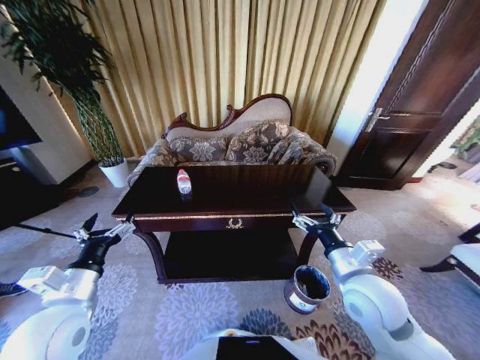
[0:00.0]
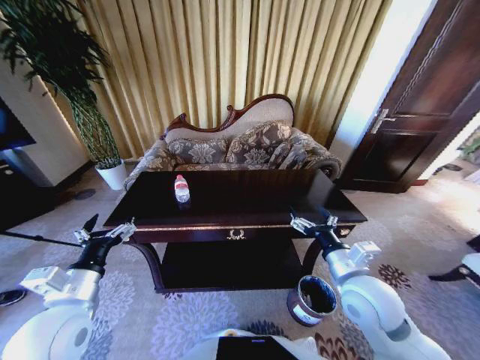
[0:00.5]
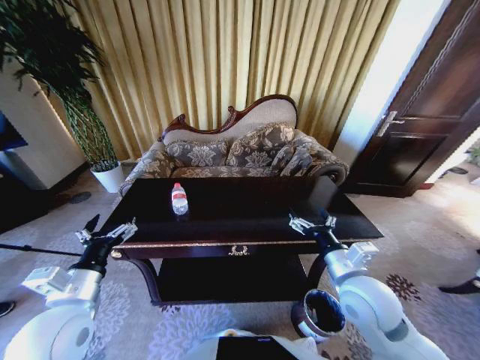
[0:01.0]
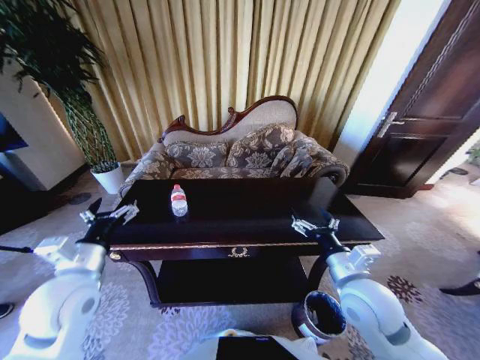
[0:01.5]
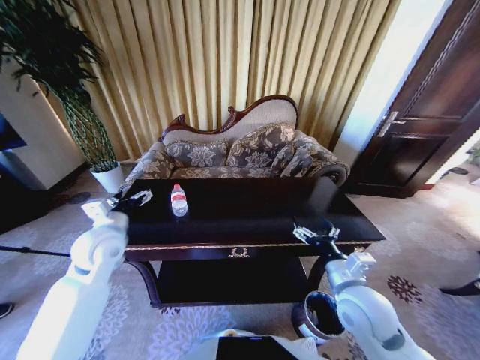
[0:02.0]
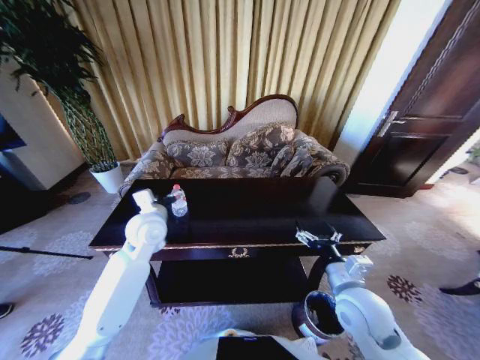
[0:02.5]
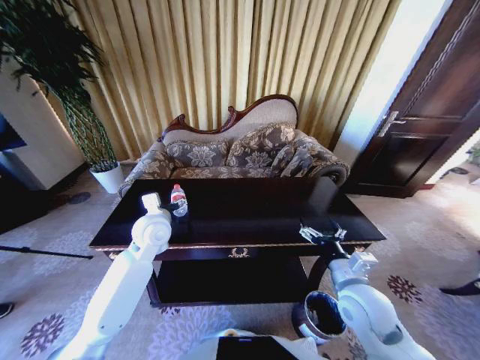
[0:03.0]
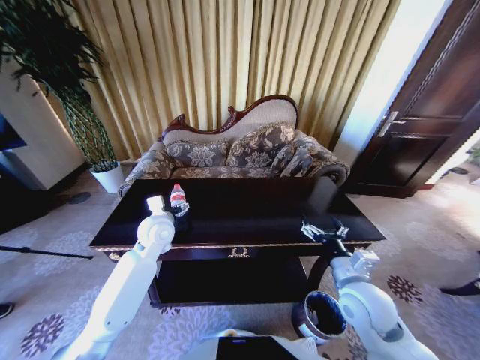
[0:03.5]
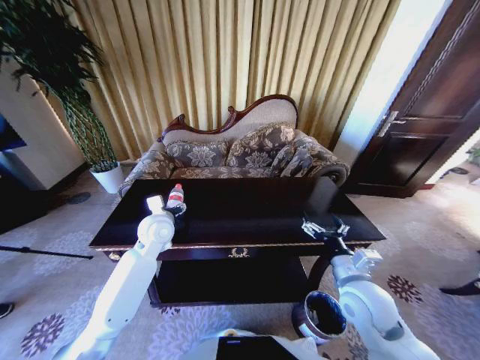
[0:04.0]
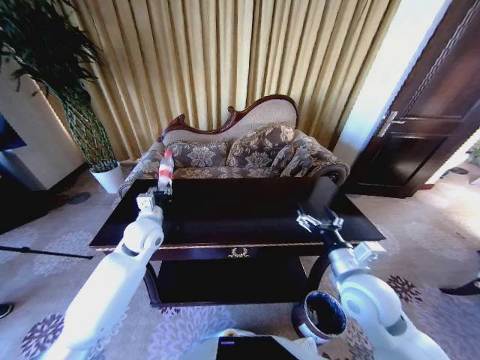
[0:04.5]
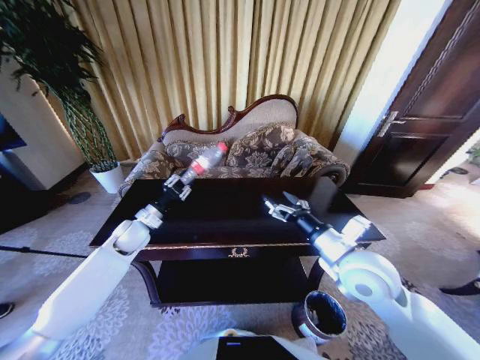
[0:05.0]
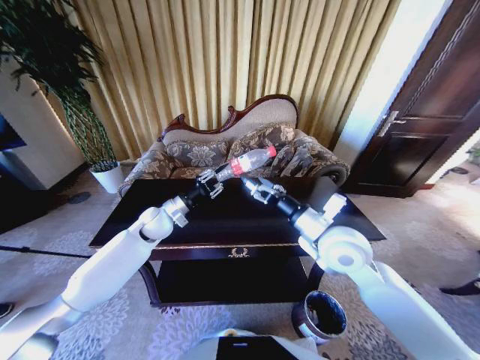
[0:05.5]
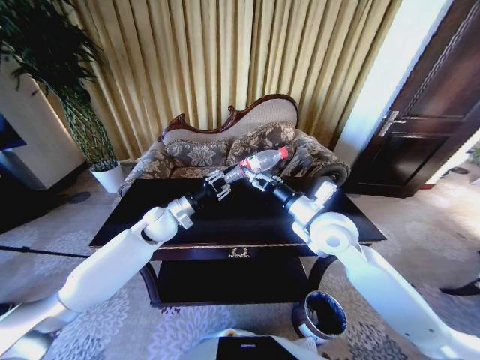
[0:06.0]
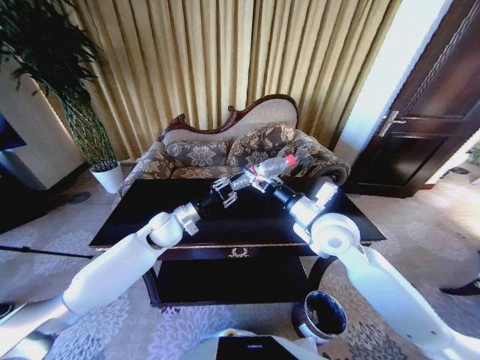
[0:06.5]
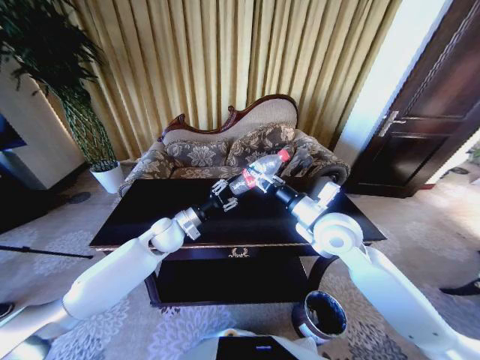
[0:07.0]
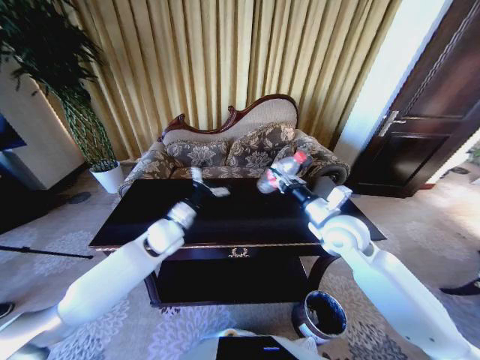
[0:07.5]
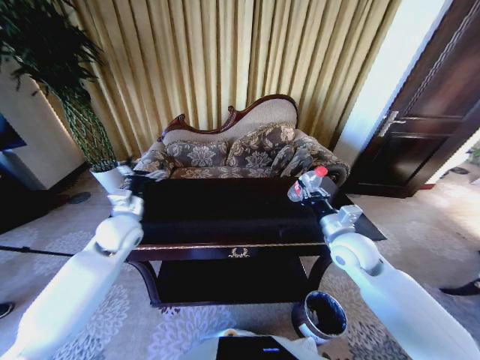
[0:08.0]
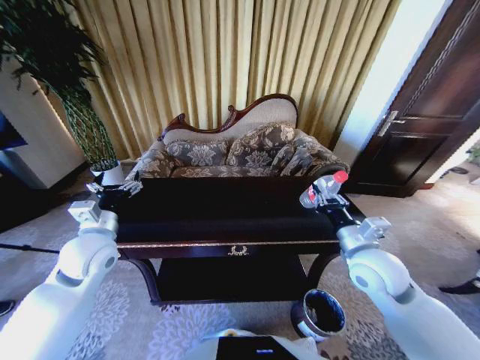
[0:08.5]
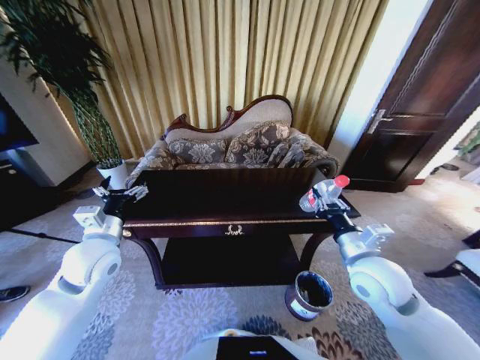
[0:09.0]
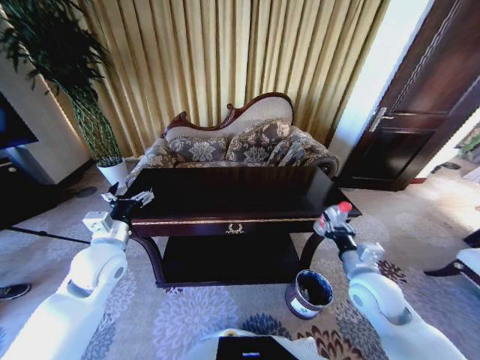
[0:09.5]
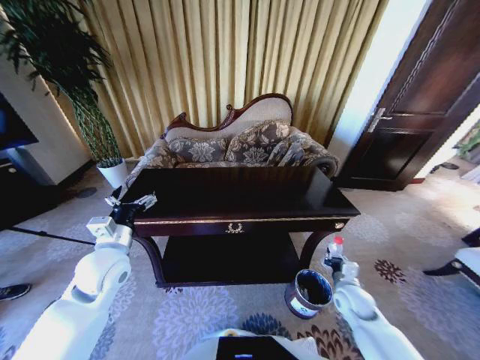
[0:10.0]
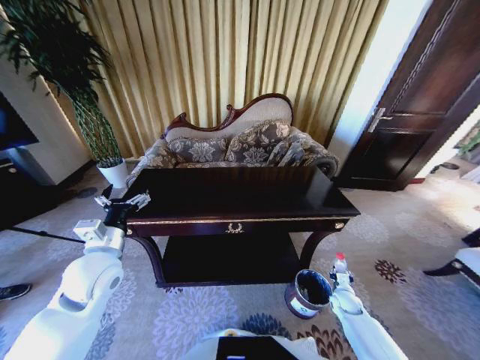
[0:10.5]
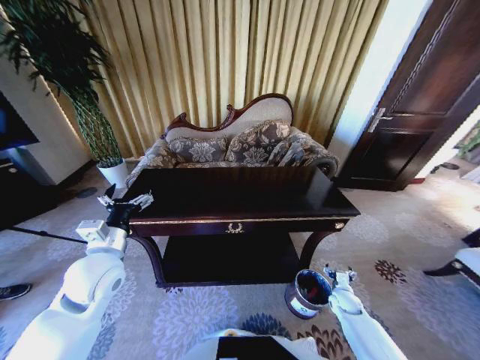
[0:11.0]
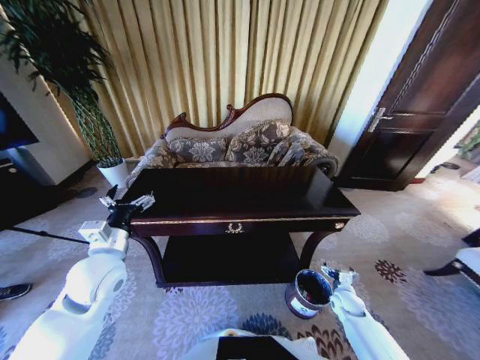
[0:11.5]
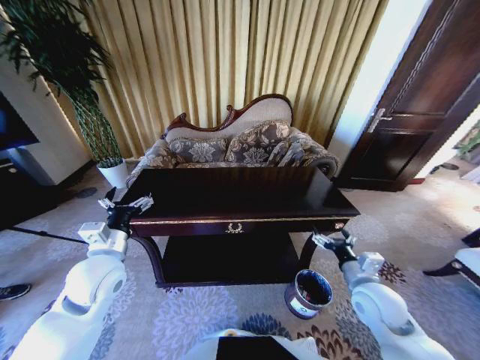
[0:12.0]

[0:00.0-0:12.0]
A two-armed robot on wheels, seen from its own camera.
Task of the whole recording: Move to the front of the table and place the trash on the table into the trash bin.
0.0 to 2.0 s: The left gripper goes some 15 cm forward.
2.0 to 4.0 s: The left gripper heads to the right and forward, covering roughly 10 cm, and closes its fingers.
4.0 to 6.0 s: The left gripper moves about 10 cm to the left and comes back, and closes; the right gripper heads forward, upward and to the left, covering roughly 15 cm.
6.0 to 8.0 s: The right gripper is displaced to the right and downward by roughly 10 cm, and closes its fingers. The left gripper moves to the left, roughly 10 cm, and opens.
8.0 to 10.0 s: The left gripper moves backward, about 10 cm, while the right gripper is displaced downward by some 20 cm.
10.0 to 12.0 s: The right gripper is displaced upward by about 10 cm, and opens up.

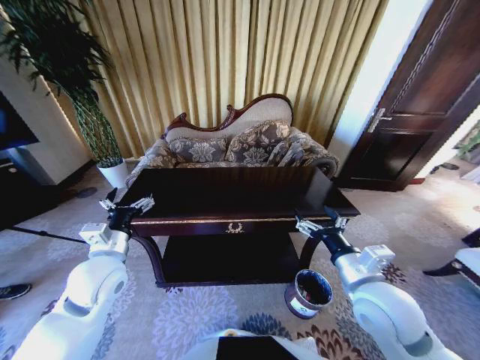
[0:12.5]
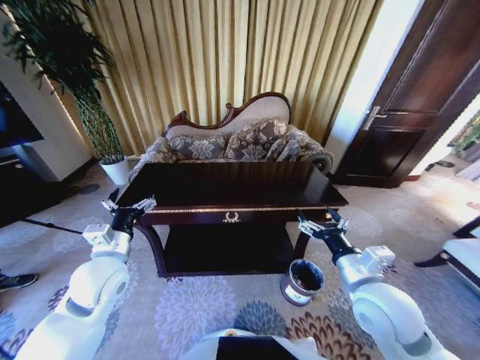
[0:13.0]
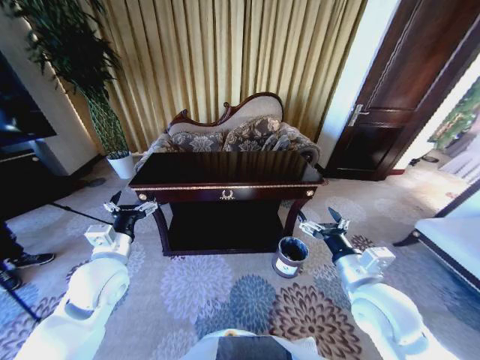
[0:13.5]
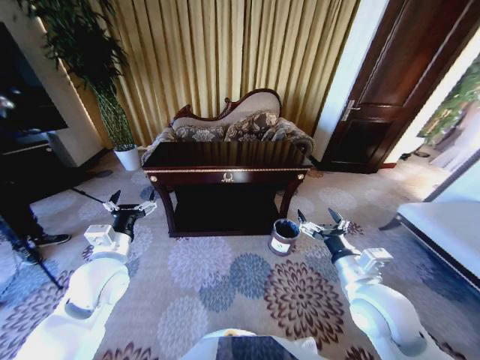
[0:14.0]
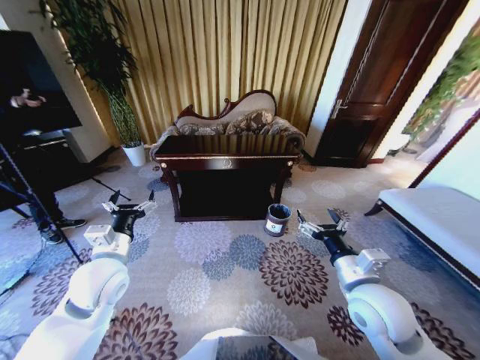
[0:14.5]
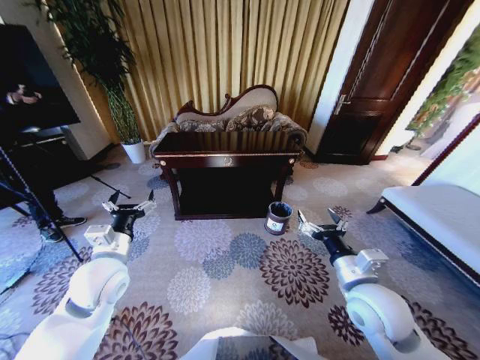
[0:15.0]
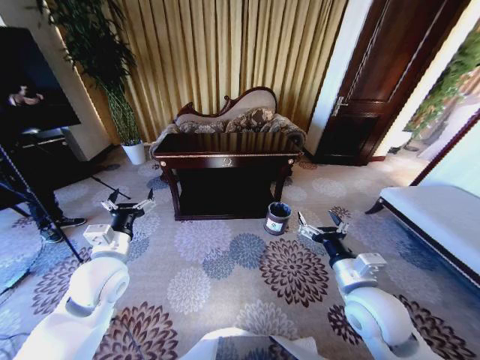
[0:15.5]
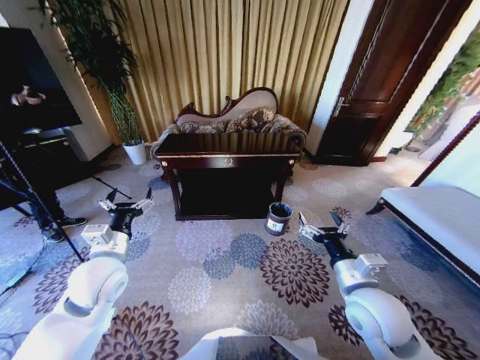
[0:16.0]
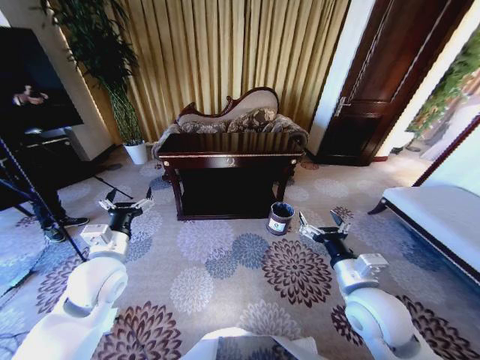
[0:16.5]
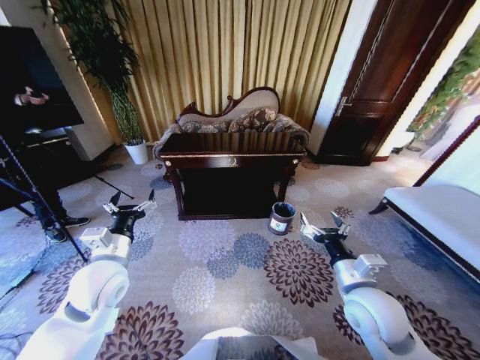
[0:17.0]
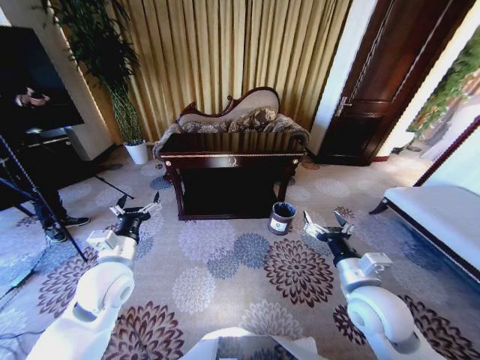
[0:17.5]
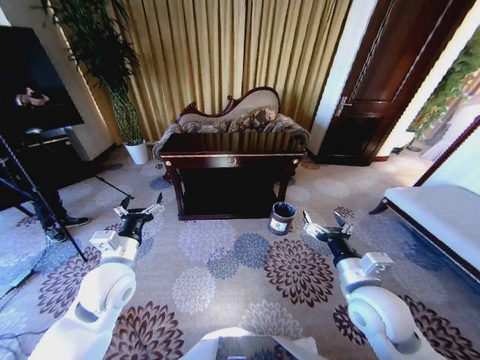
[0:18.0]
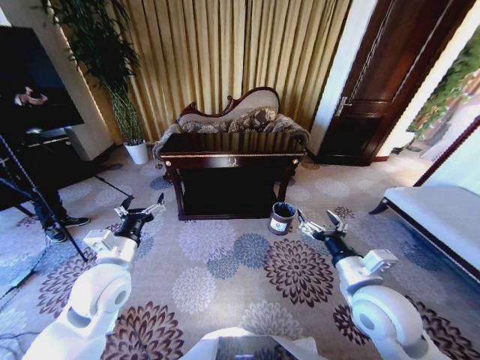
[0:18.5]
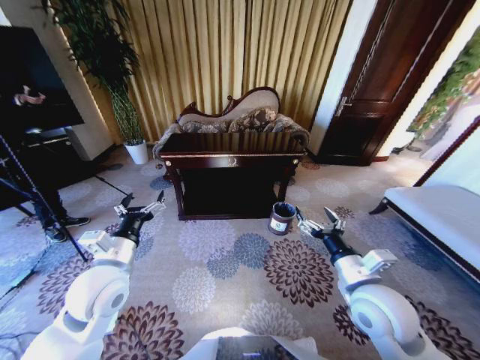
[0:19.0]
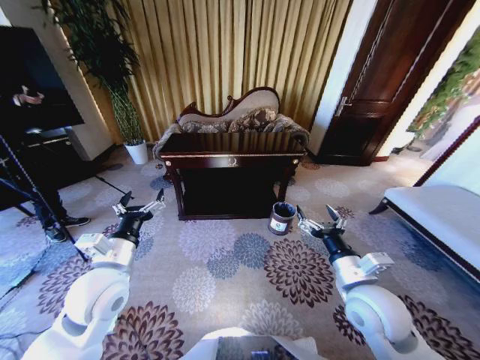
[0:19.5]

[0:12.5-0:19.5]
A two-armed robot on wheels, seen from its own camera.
Task of the whole recording: Move to the front of the table and place the trash on the table into the trash bin.
14.5 to 16.0 s: Neither gripper changes place.
17.5 to 19.5 s: The grippers make only small movements.

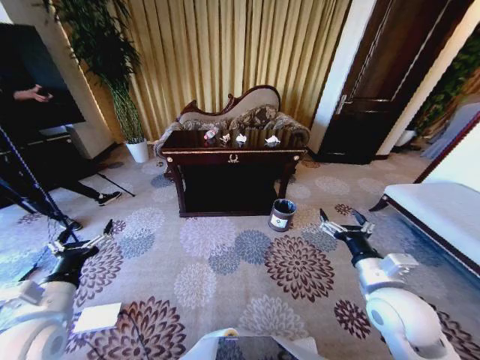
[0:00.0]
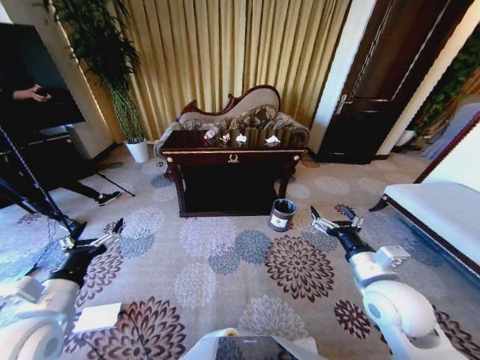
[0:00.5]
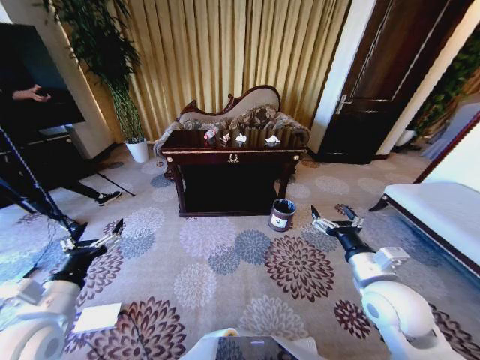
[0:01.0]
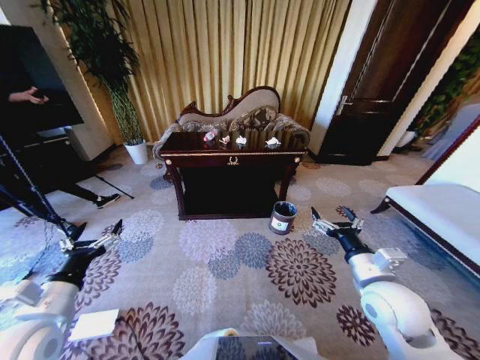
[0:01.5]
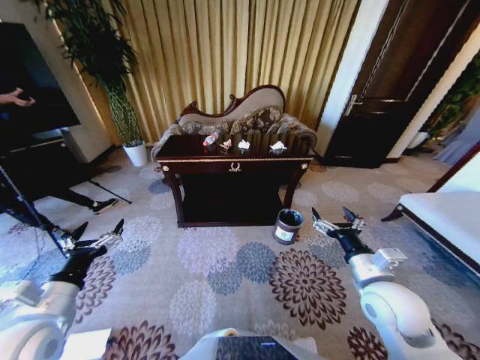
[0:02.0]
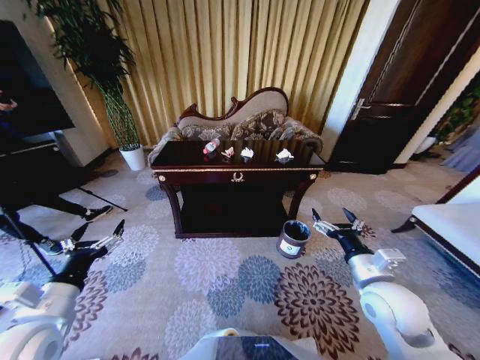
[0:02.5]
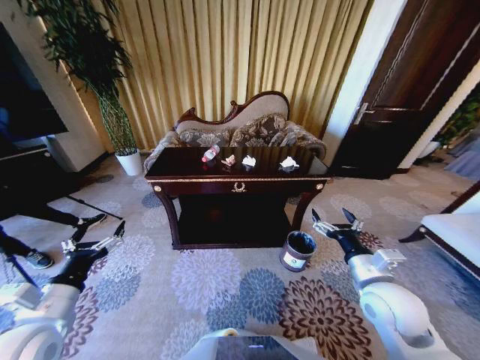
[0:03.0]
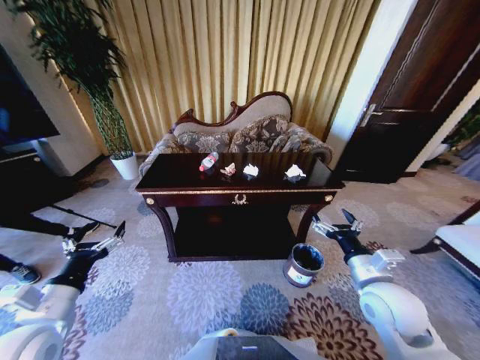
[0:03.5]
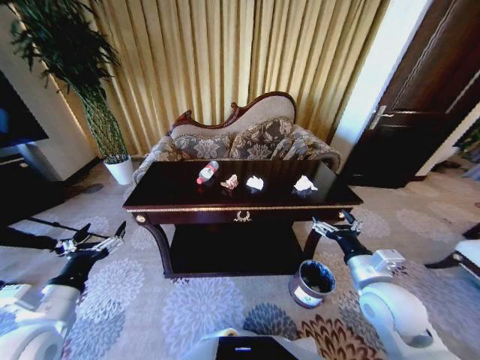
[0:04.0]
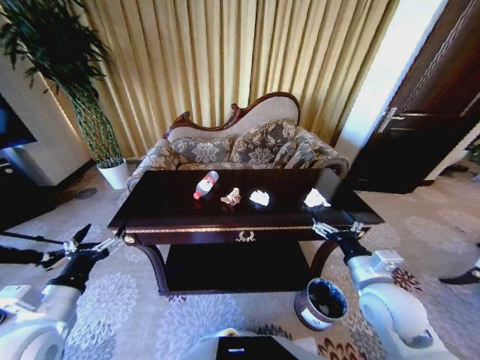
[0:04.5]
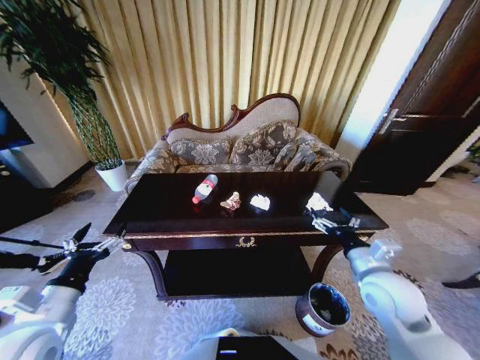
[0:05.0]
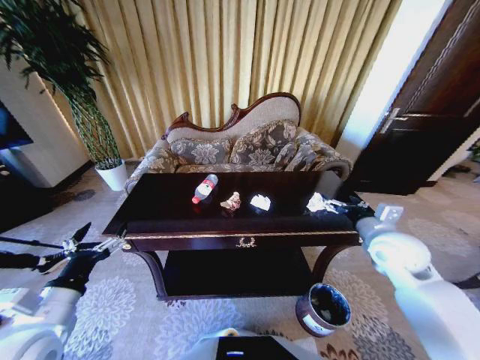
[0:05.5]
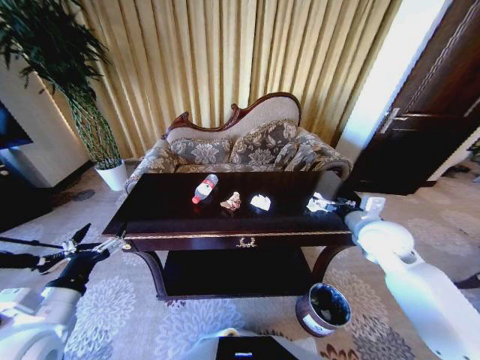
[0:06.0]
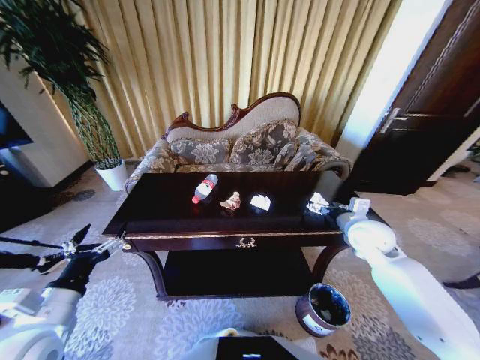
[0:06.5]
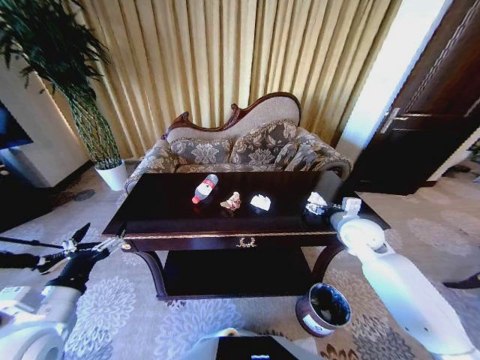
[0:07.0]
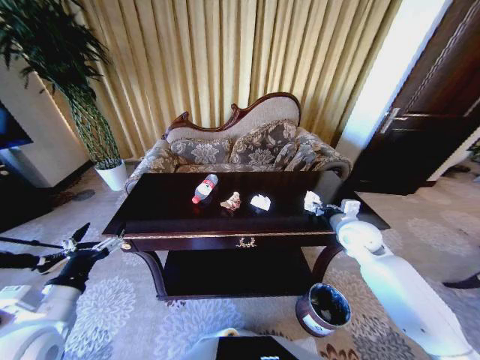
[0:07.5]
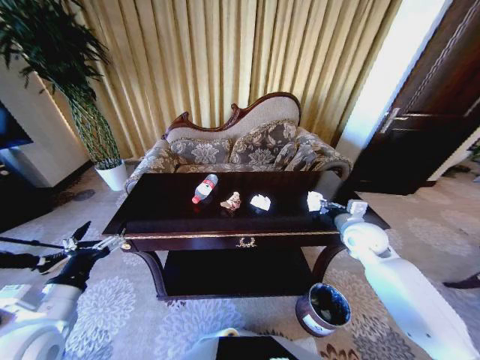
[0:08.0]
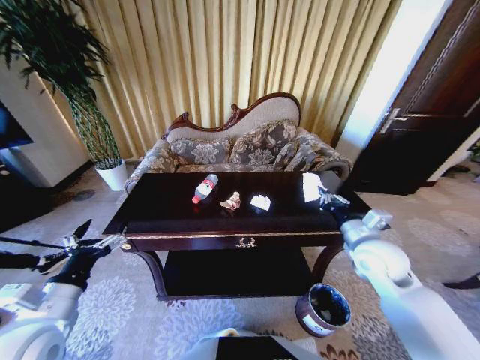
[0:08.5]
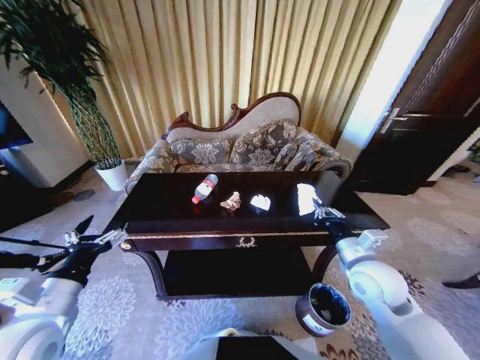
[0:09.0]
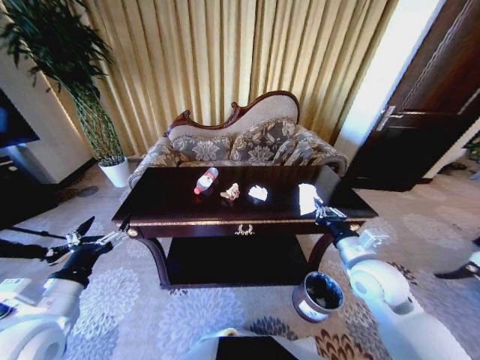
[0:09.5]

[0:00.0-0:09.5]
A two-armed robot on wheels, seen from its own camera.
Task of the whole recording: Move to the front of the table and place the trash on the table into the trash bin.
4.0 to 5.5 s: The right gripper travels forward and to the right by approximately 10 cm.
5.5 to 7.5 s: The right gripper moves forward and downward, roughly 10 cm, and closes.
7.5 to 9.5 s: The right gripper moves backward, approximately 15 cm.
